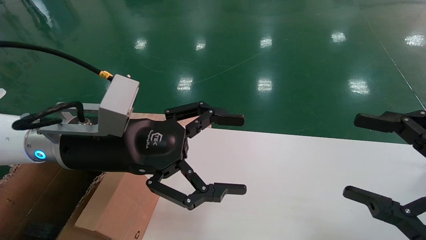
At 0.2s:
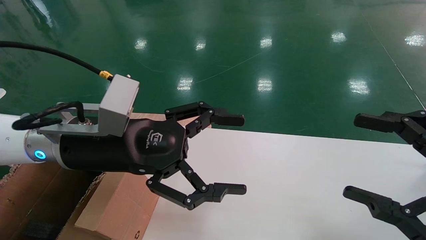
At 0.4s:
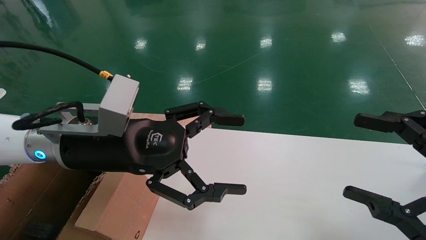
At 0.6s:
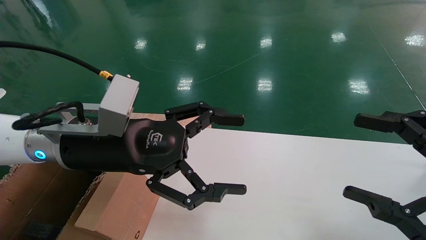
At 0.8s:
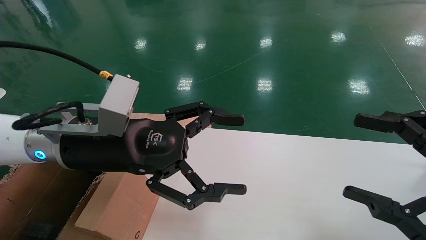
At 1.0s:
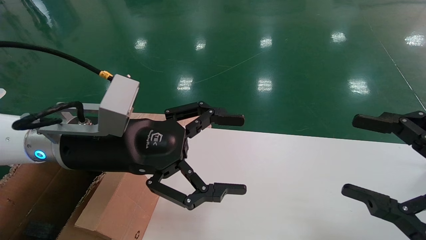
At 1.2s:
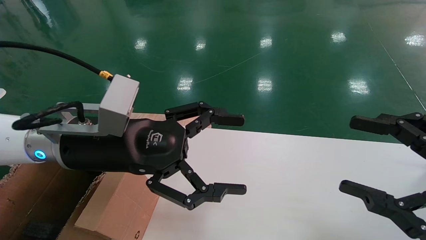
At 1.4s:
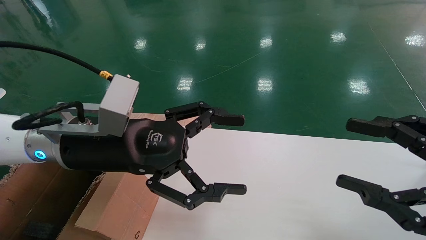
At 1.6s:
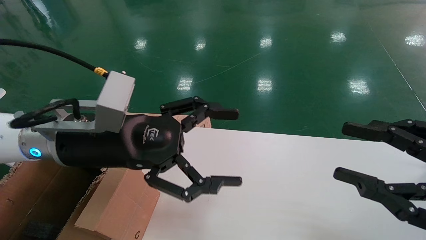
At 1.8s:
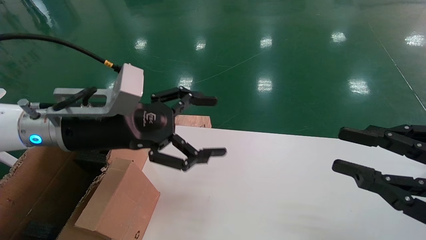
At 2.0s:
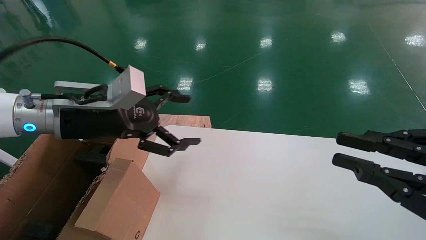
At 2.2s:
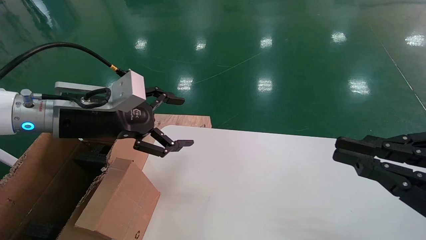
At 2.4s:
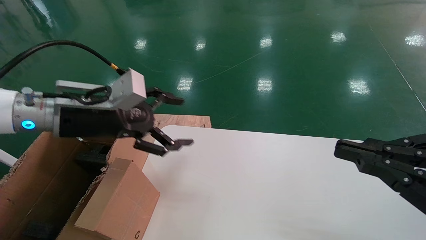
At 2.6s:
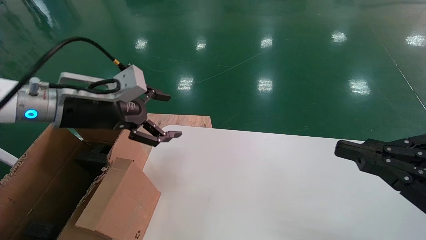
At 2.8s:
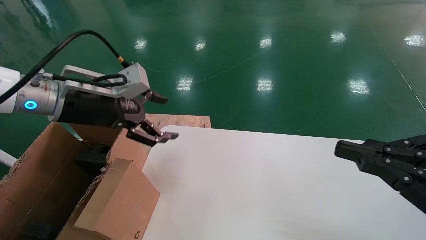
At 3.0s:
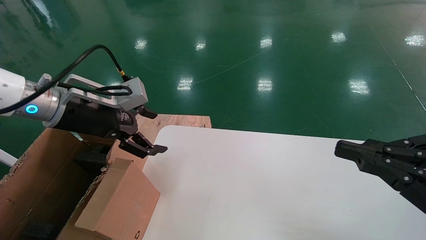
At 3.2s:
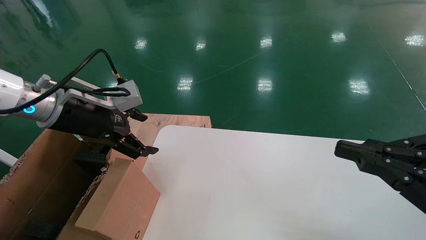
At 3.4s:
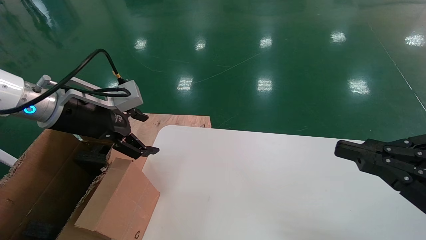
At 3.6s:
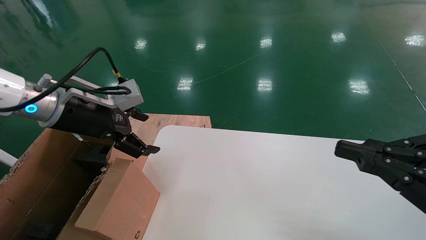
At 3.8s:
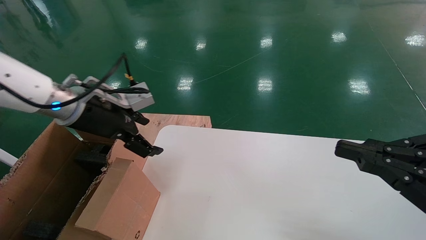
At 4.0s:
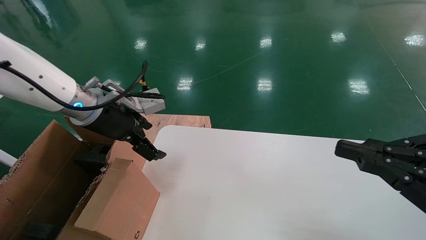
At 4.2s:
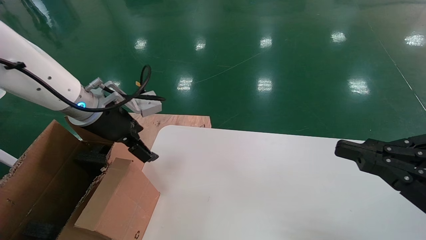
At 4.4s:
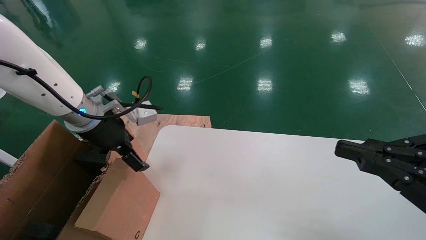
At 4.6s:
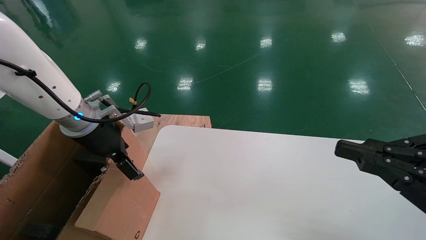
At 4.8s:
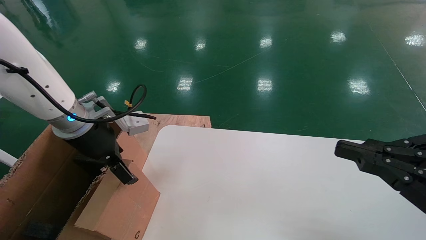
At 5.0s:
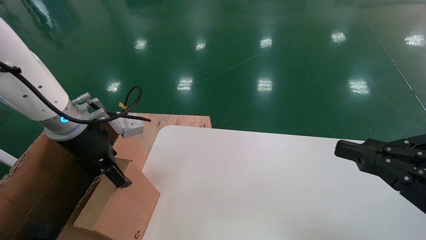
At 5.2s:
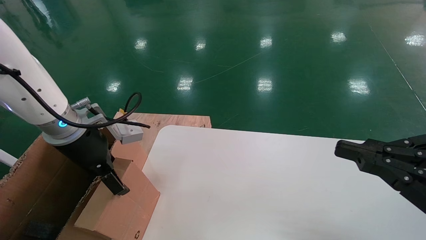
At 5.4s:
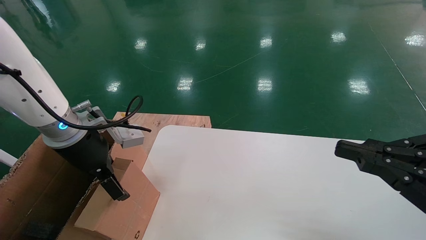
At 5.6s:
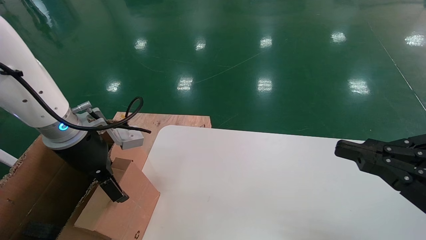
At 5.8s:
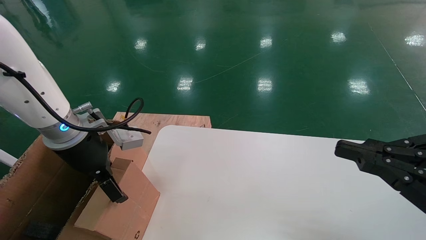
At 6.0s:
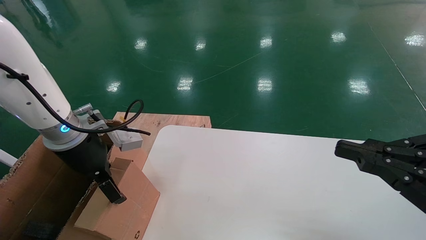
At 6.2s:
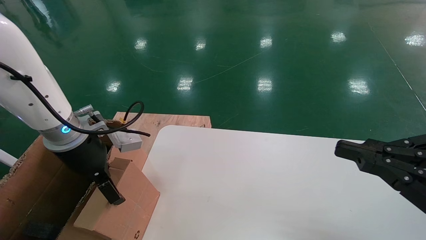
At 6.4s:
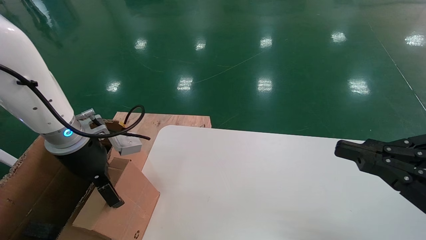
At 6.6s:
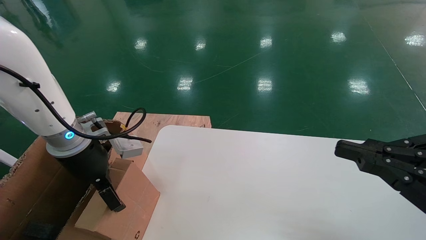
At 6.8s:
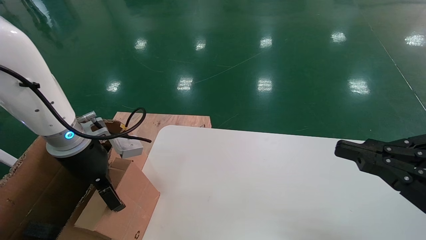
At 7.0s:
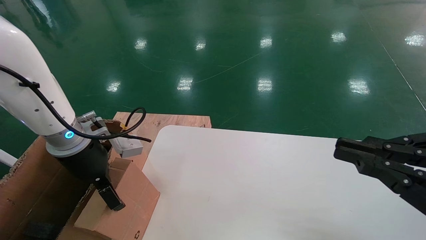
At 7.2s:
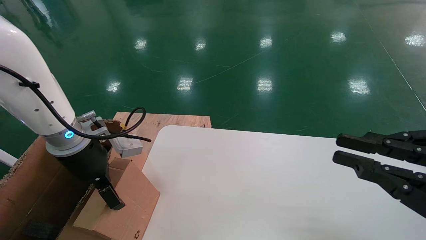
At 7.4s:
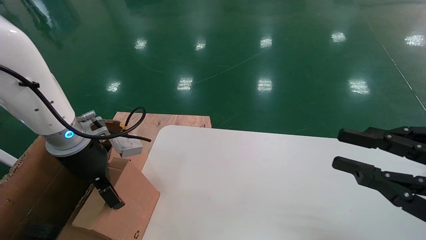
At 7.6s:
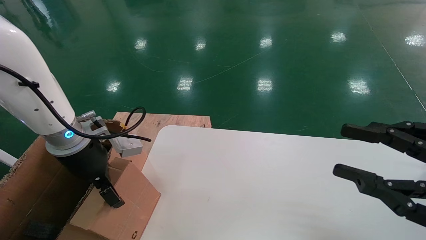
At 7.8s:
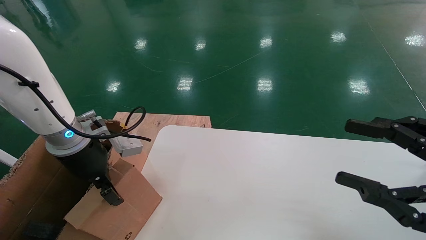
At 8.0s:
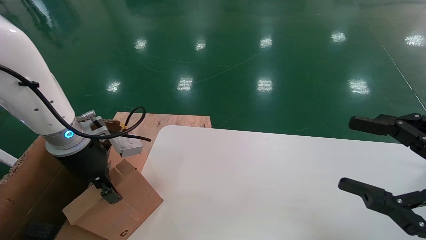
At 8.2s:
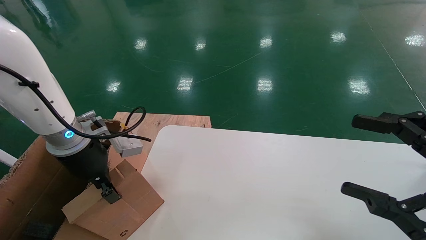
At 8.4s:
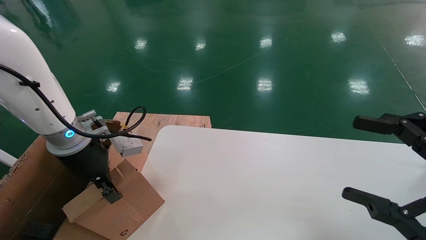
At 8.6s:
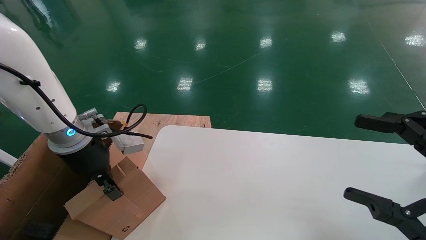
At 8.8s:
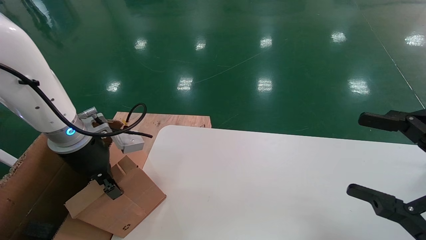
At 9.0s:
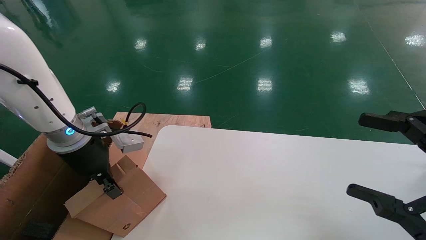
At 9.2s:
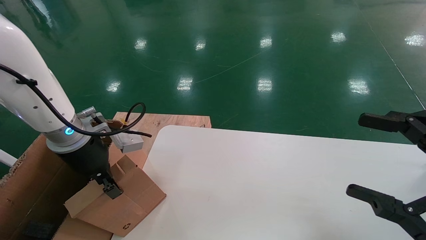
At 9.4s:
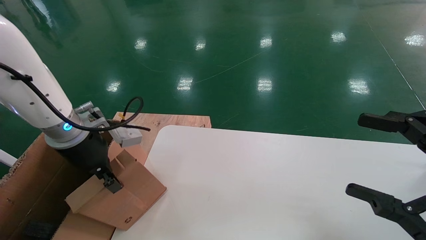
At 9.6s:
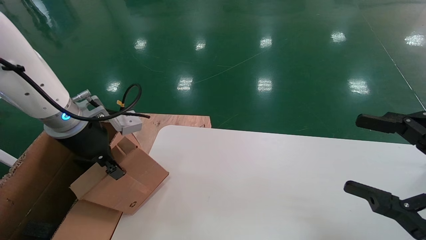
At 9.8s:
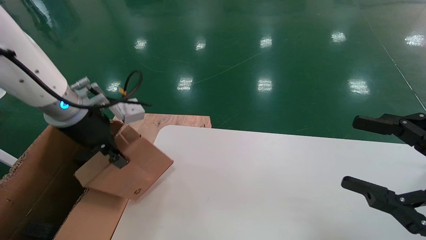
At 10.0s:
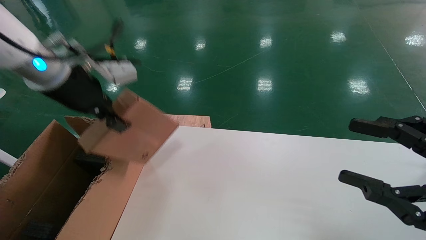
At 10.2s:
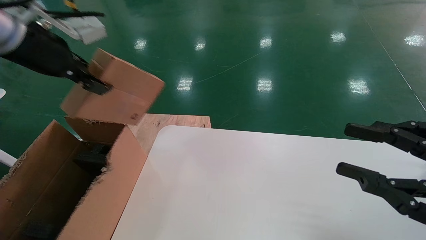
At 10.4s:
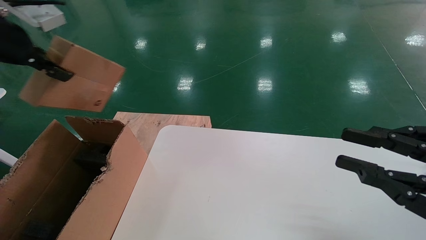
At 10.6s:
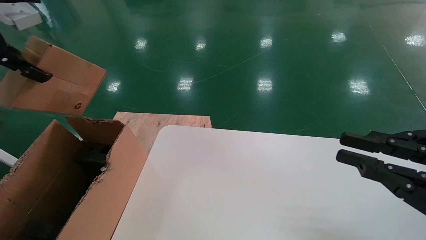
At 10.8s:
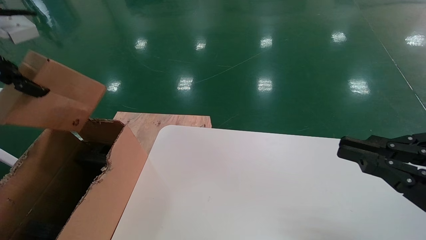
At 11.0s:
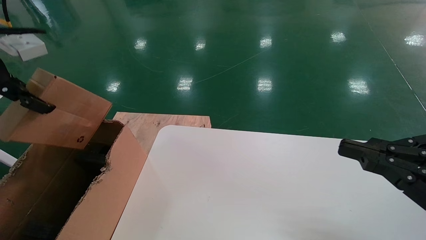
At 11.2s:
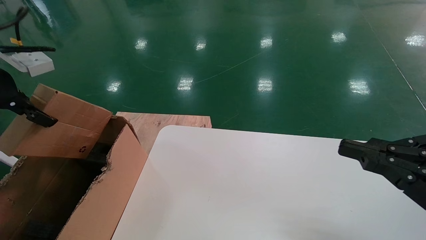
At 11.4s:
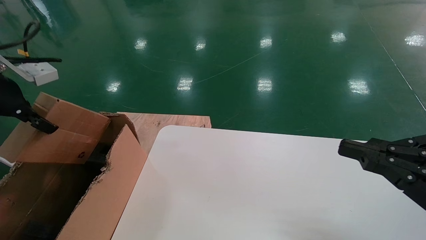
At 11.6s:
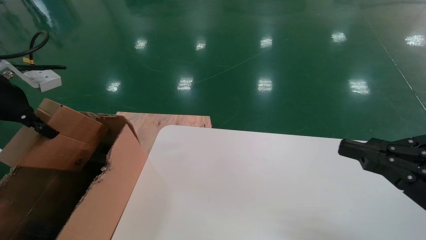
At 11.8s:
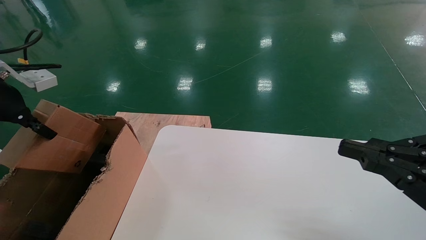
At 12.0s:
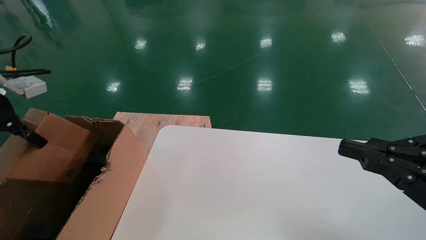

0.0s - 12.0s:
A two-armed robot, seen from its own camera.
Task of the whole recording: place the small box on the table into the large box on the left.
Step, 2.0s - 8.0s: Pick up the mouse and the power cord paper box.
0.0s - 1.6s: The right gripper closes.
1.6s - 3.0s: The right gripper closes its fingers. Meanwhile the left gripper heads to the left, covering roughly 10 cm.
4.4s - 6.0s: The grippers make only small movements.
6.0s - 7.6s: Neither gripper changes place.
7.6s - 9.0s: The right gripper opens up. Meanwhile the left gripper closes.
9.0s - 10.4s: The right gripper closes up; the left gripper heads upward and to the left, covering roughly 20 cm.
10.4s - 12.0s: The right gripper closes up. The left gripper travels downward and to the left by approximately 15 cm.

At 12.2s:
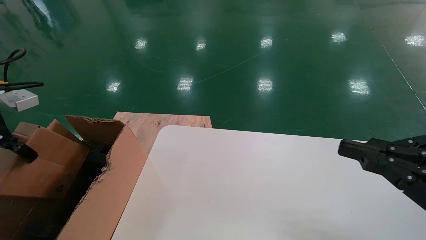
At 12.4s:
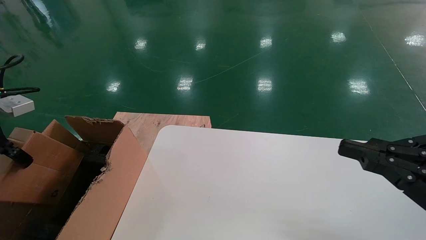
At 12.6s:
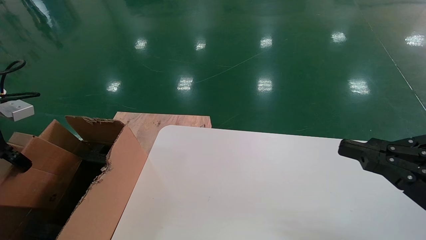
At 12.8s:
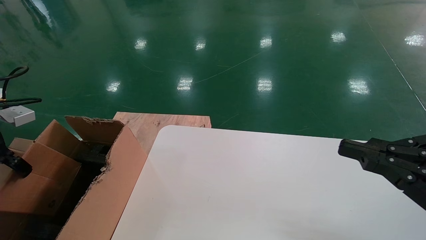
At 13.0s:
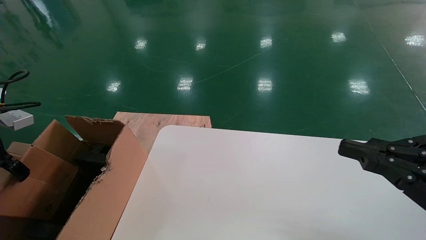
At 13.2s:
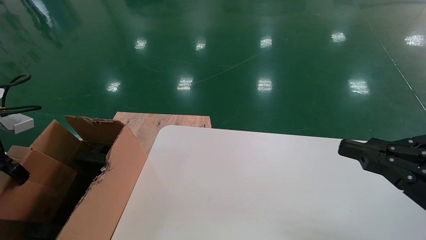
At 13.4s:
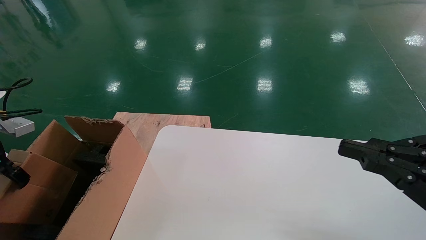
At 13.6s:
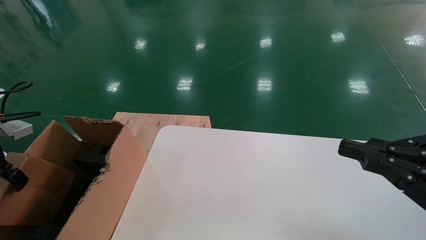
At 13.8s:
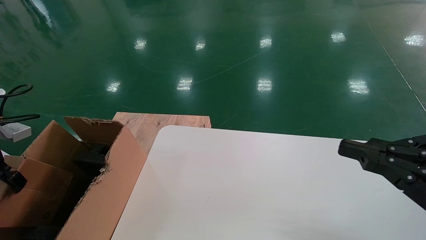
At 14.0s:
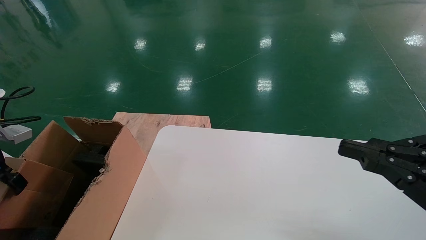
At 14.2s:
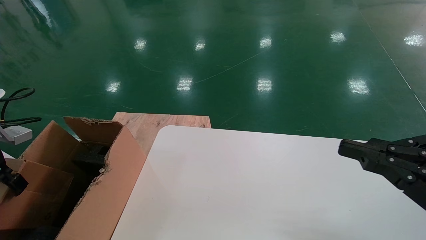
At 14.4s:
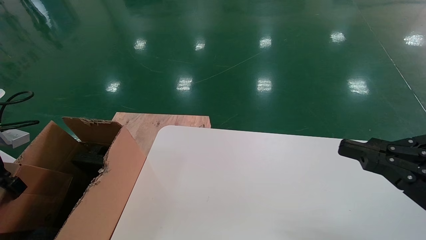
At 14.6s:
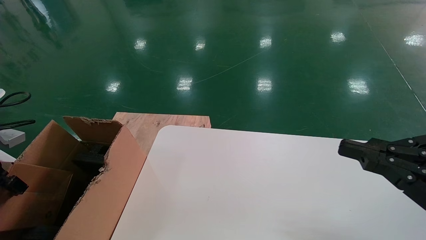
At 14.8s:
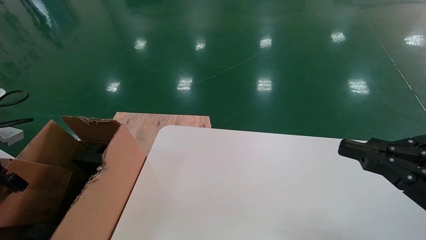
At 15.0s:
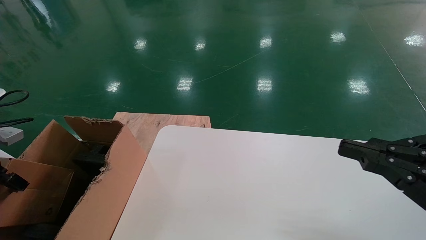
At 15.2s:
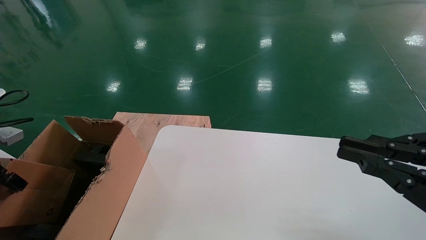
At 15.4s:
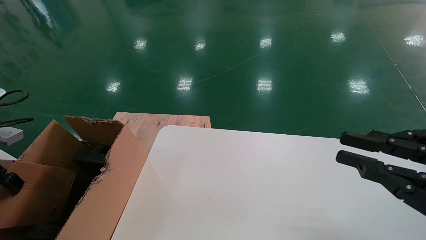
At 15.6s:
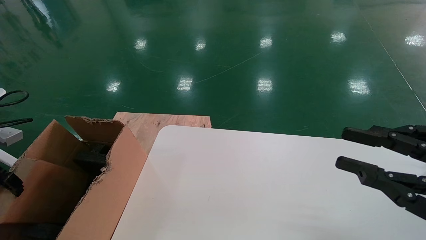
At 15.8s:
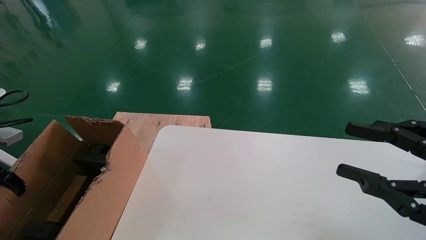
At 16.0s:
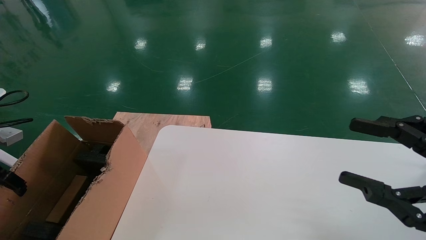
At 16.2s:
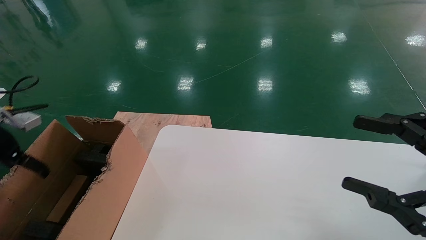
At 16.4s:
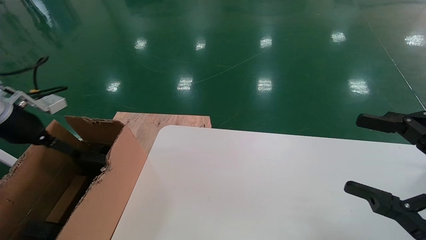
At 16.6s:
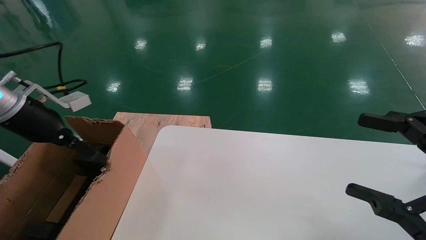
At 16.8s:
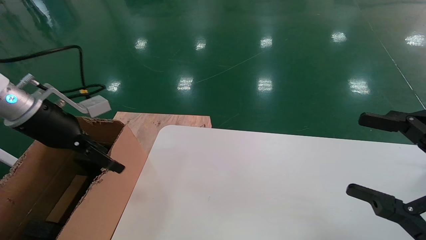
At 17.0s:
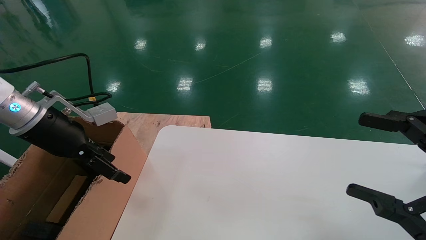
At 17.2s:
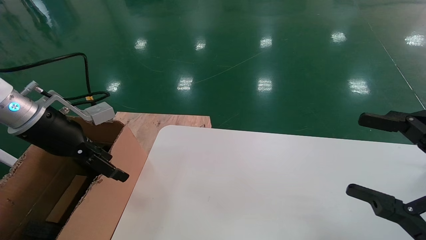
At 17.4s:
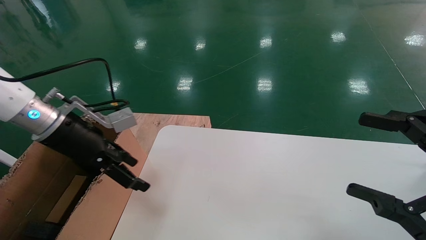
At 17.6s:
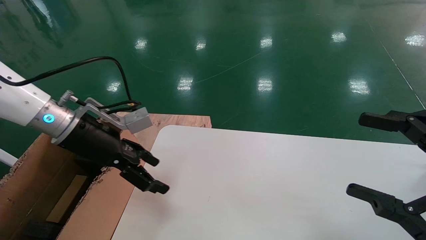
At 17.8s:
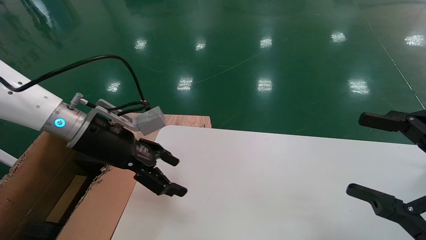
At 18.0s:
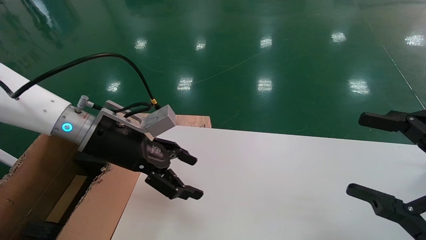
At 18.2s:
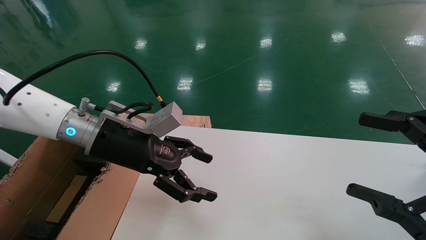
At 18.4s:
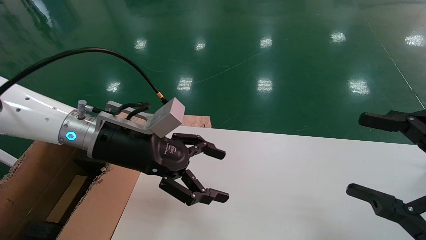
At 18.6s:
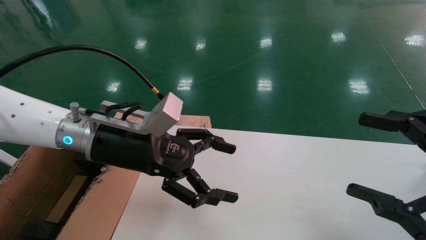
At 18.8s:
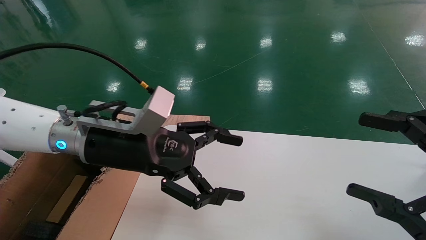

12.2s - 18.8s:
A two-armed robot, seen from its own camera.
Task of the whole recording: place the small box on the table into the large box on the left.
Step, 12.2s - 15.8s: Place the mouse and the power cord paper box into the container.
12.2s - 13.8s: The left gripper shifts some 10 cm downward.
13.8s - 15.4s: The grippers make only small movements.
15.4s - 17.2s: The right gripper opens; the left gripper is displaced to the right by some 20 cm, and opens.
17.2s - 18.8s: The left gripper heads to the right, covering roughly 15 cm.
